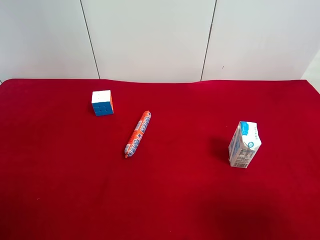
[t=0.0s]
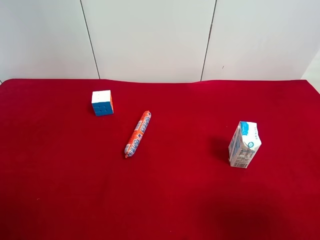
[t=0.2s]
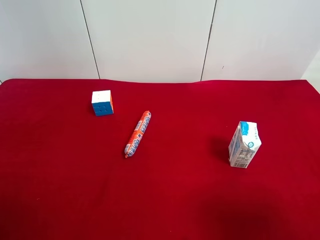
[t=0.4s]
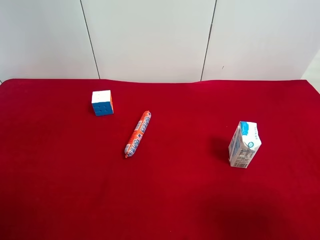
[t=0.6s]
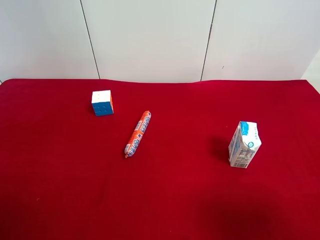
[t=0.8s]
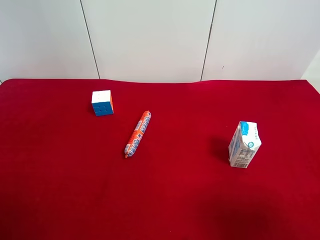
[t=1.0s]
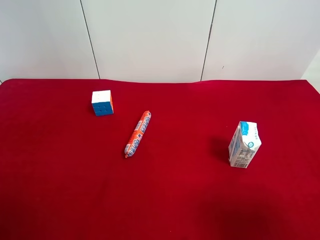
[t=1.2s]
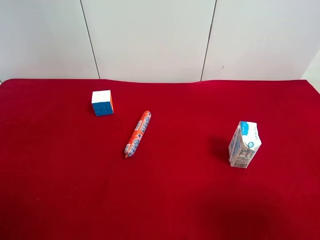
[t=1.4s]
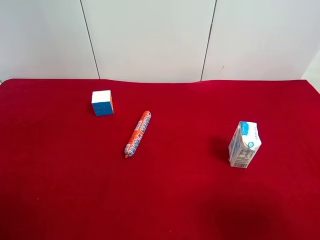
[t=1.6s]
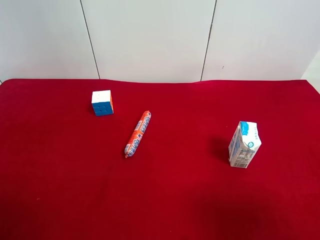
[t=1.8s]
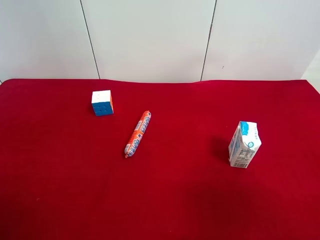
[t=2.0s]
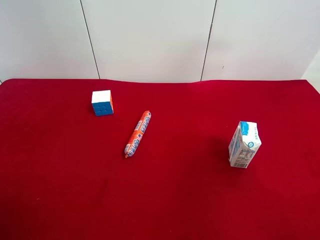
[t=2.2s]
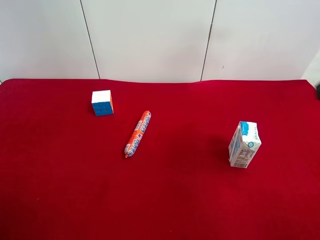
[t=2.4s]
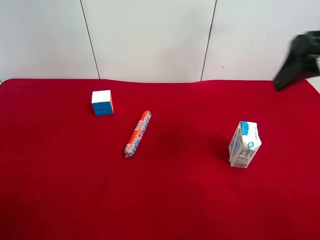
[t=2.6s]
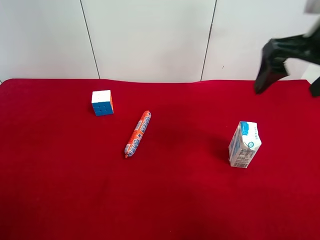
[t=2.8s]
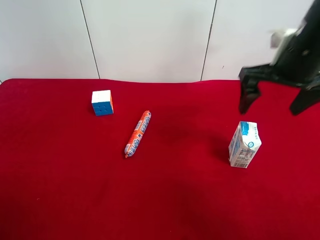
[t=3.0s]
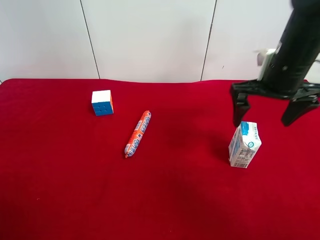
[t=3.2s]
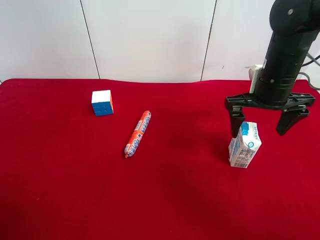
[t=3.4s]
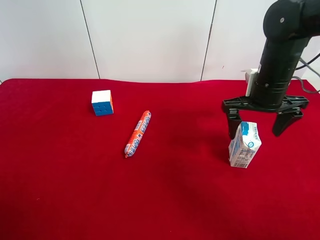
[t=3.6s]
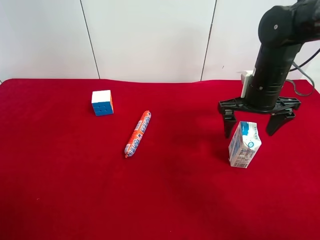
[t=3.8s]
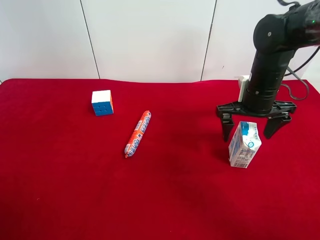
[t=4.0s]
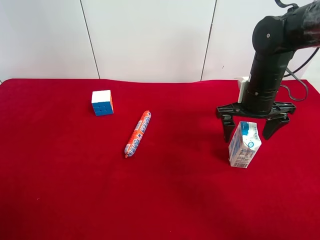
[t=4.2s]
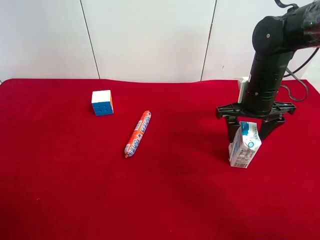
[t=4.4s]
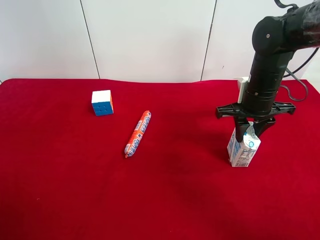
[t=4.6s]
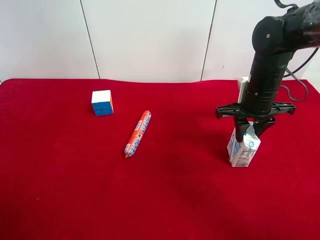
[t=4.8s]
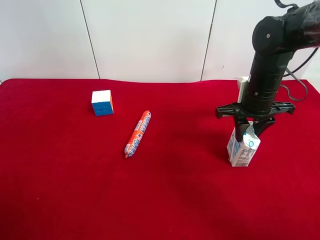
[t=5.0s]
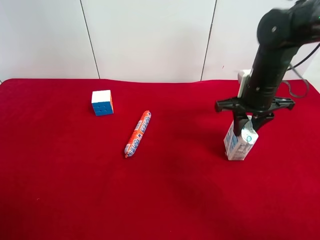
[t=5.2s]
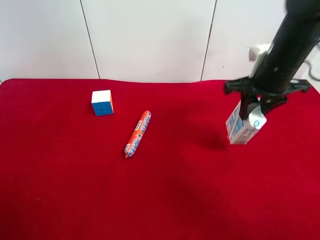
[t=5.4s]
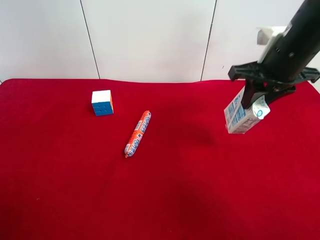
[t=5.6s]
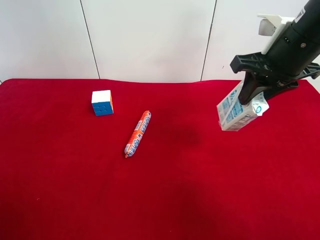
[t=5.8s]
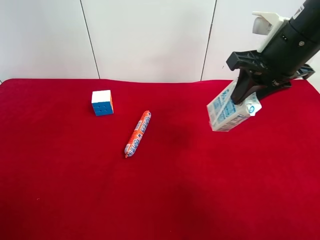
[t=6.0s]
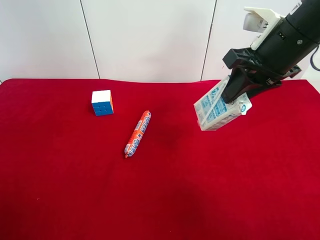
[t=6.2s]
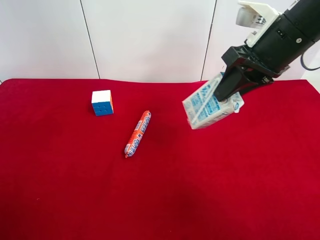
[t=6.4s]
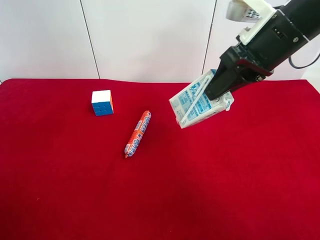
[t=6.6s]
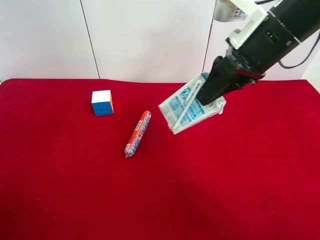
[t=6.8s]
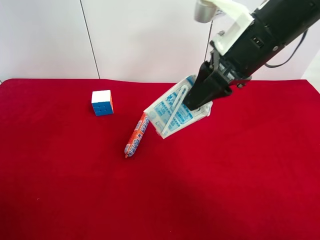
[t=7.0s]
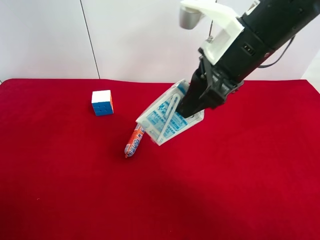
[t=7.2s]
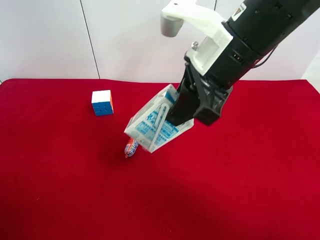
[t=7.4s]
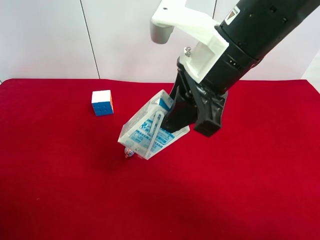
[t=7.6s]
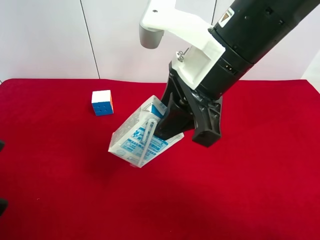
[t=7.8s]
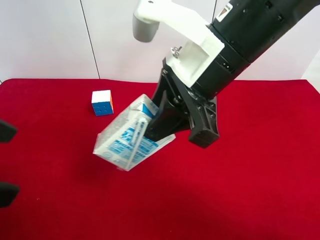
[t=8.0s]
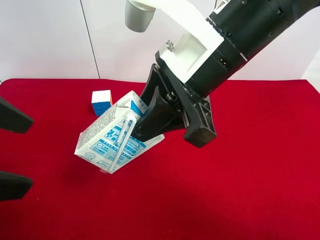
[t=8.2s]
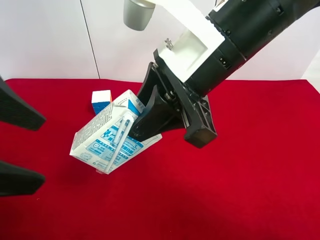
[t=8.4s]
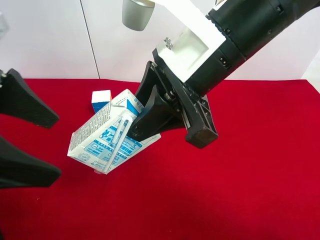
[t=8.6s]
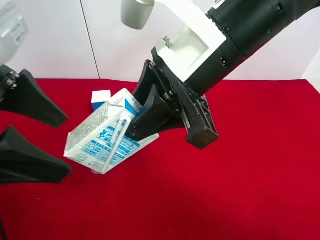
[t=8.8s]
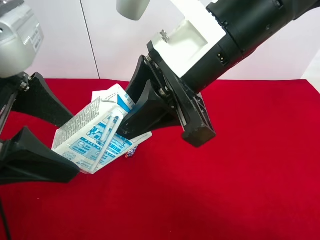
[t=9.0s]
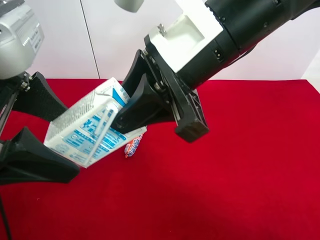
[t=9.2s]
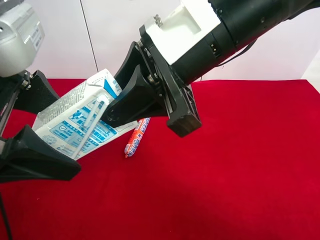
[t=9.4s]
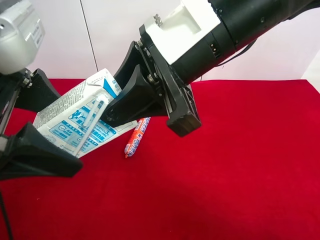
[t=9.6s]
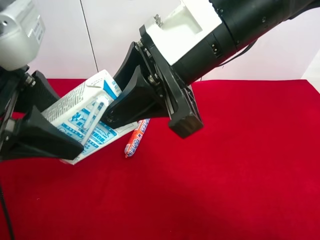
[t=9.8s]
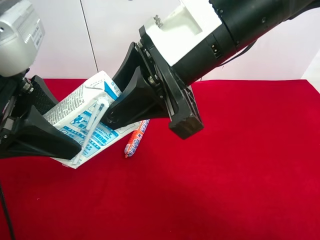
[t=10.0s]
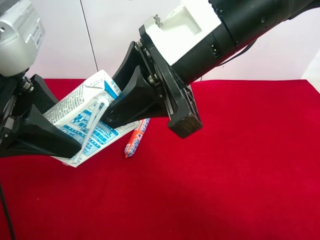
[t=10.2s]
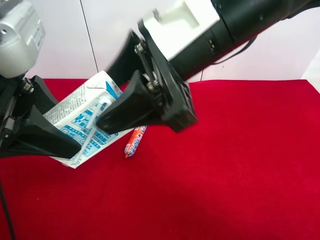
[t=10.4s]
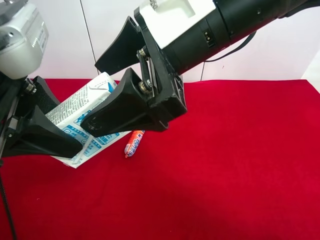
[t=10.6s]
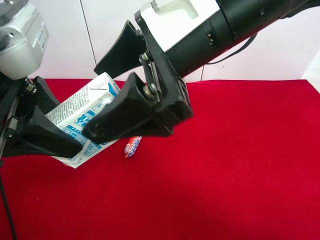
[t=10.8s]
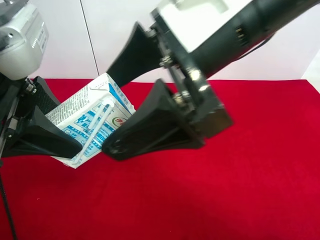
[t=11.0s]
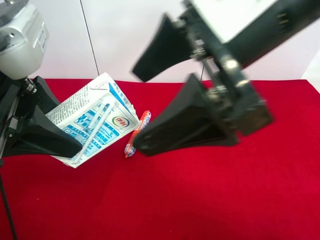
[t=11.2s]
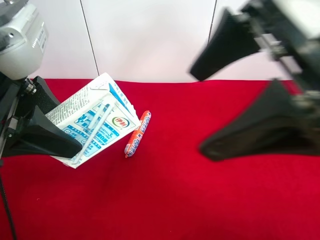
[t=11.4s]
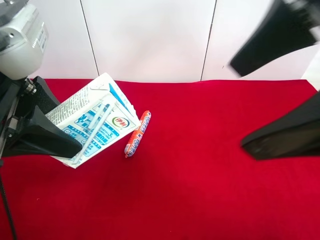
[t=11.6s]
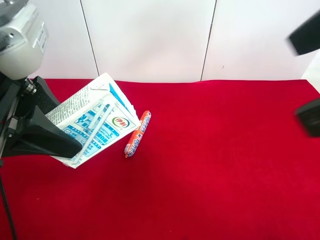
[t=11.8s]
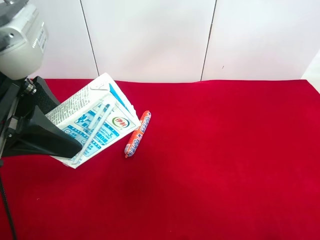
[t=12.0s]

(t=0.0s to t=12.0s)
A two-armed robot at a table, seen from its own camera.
Task of the whole recording: use the right gripper to pick up the item and transfer it from the right gripper to the left gripper.
Step, t=0.0s - t=4.4s: Use the right gripper to grab the milk on the right side of the table.
Step, t=4.6s - t=10.4s: Pass the milk to the left gripper.
t=0.0s - t=1.6s: The two grippers keep their place.
t=1.6s - t=3.0s: The right gripper travels forward by approximately 30 cm.
t=3.0s - t=4.4s: The right gripper shifts about 10 cm downward, and closes up.
t=4.4s - t=6.0s: The right gripper travels upward and backward by approximately 15 cm, and closes up.
t=6.0s - t=7.6s: The right gripper moves to the left and backward, approximately 15 cm. Meanwhile the left gripper is displaced forward and to the right by approximately 10 cm.
t=7.6s - t=9.0s: The left gripper travels forward and to the right by approximately 10 cm.
t=9.0s - t=10.4s: The right gripper opens up, while the left gripper closes.
t=10.4s - t=12.0s: The right gripper goes some 20 cm to the right, backward and upward.

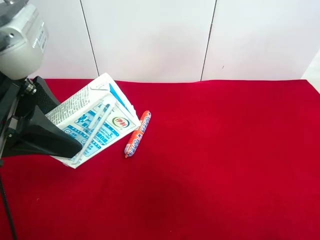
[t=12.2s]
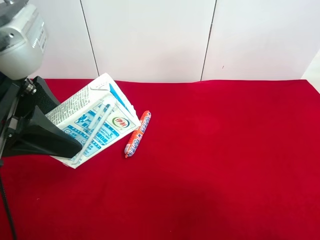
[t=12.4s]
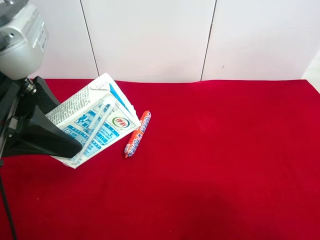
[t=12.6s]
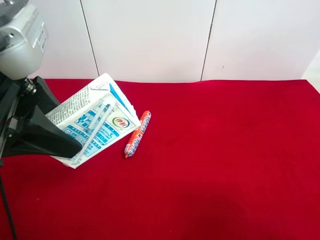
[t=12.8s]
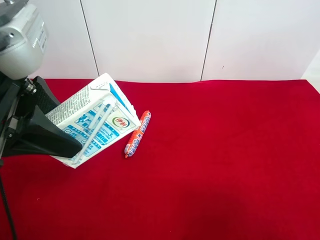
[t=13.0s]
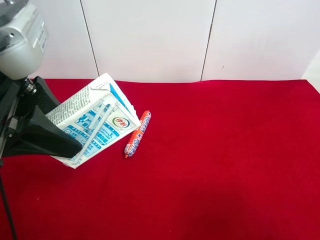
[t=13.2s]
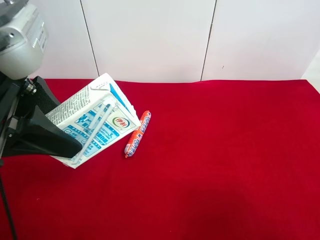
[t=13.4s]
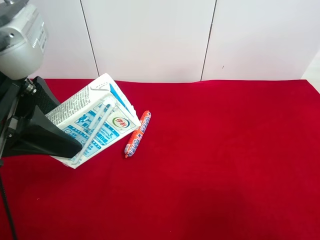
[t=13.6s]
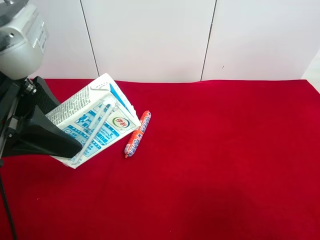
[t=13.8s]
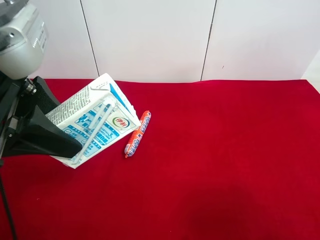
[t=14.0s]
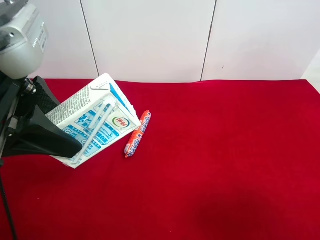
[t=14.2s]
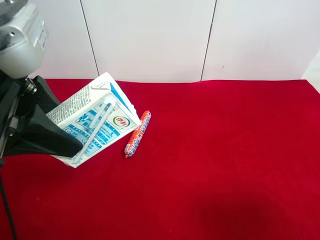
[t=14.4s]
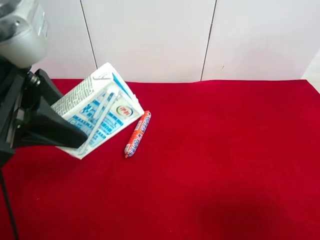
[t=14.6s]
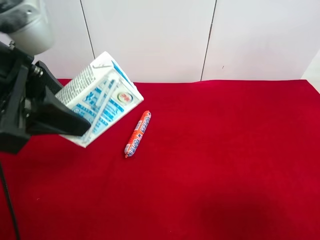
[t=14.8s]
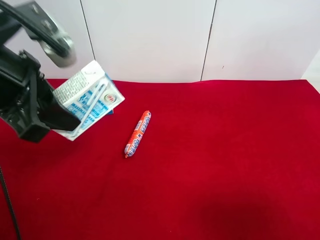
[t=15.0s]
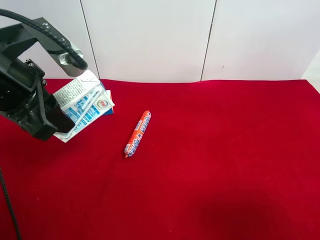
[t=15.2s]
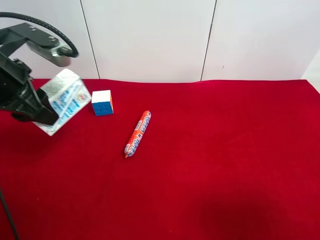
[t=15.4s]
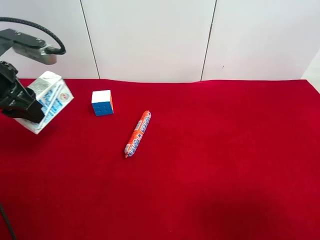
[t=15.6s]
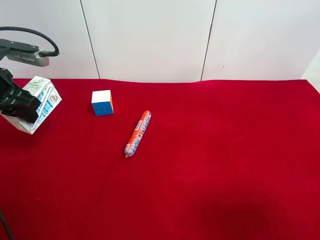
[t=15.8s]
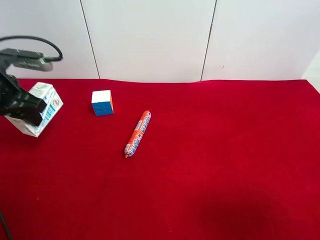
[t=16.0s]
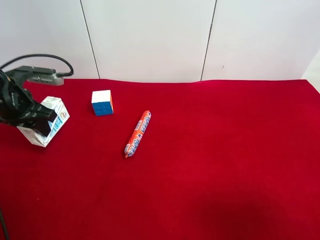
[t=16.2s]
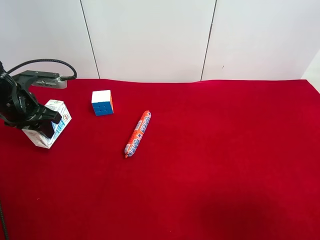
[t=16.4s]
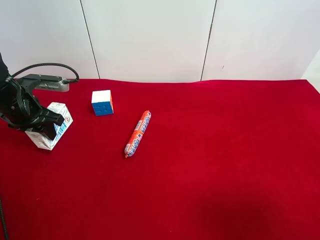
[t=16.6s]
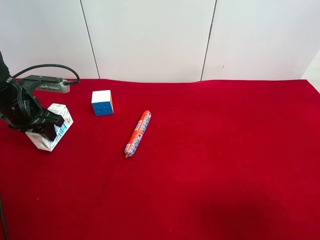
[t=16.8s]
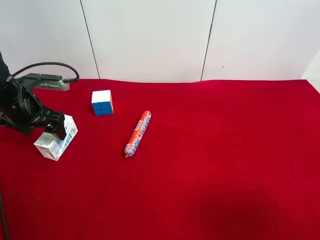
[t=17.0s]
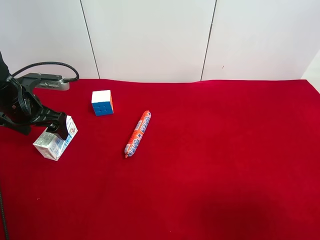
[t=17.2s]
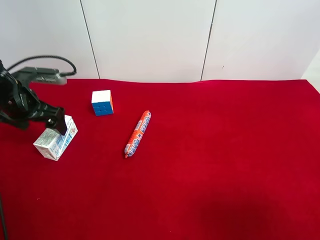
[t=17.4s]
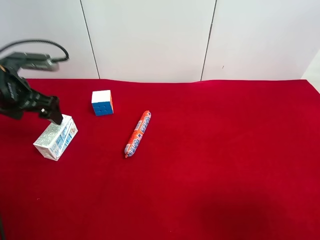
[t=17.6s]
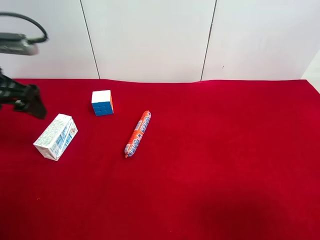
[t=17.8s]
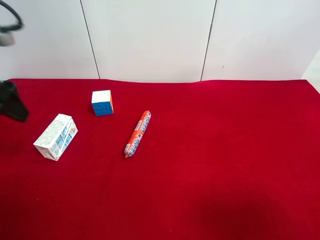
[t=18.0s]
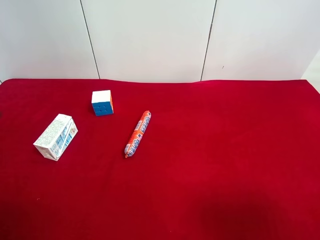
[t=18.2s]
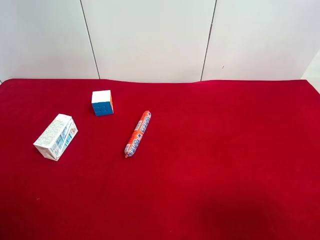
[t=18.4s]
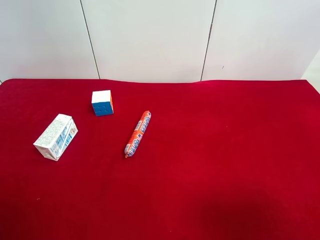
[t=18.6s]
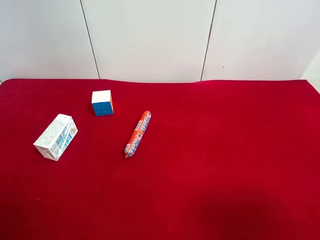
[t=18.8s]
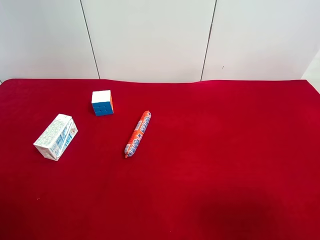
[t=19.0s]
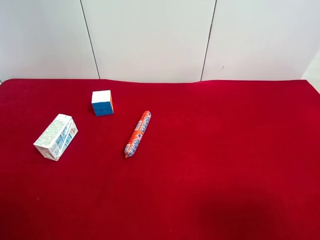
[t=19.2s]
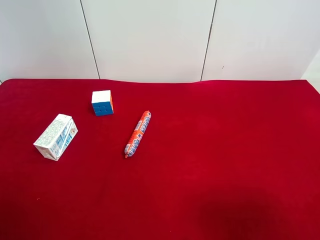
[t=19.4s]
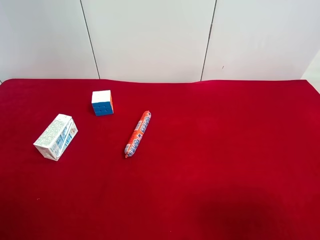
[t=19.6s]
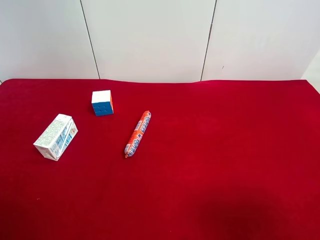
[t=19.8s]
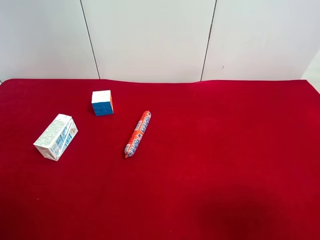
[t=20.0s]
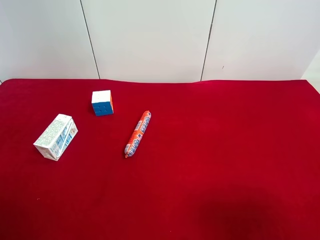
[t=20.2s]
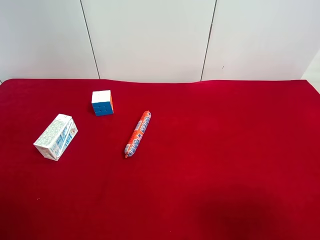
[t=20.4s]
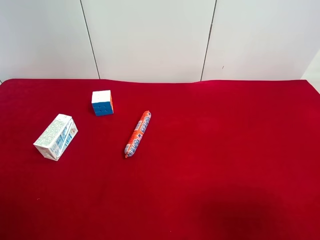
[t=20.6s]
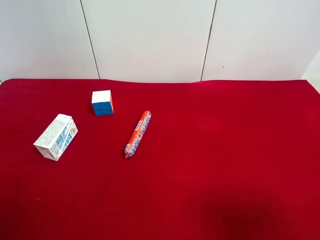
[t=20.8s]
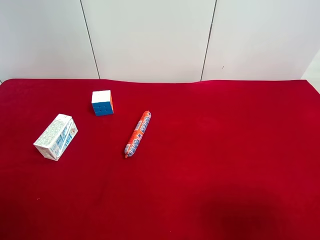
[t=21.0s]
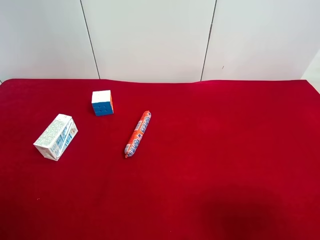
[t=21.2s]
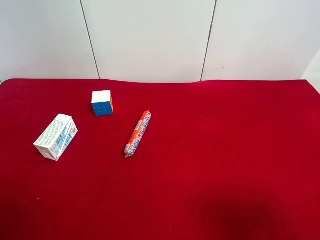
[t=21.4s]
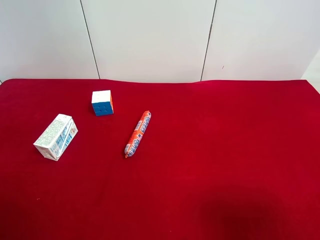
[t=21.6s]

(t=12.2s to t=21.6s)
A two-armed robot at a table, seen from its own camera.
Task of the whole recording: use the right gripper to pick up the item and transfer it from the right gripper to the left gripper.
Step, t=12.2s - t=17.0s: The left gripper places milk on the left side of the table.
t=13.8s - t=15.4s: The left gripper shifts about 10 cm forward and to the left.
t=15.4s - t=17.0s: The left gripper goes approximately 15 cm downward, forward and to the left, and opens up.
t=17.0s - t=18.4s: The left gripper is displaced backward and upward by roughly 25 cm.
